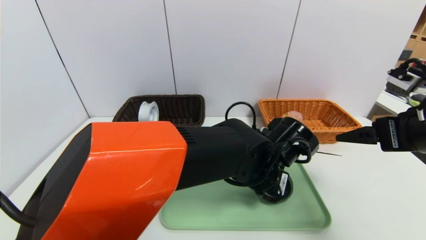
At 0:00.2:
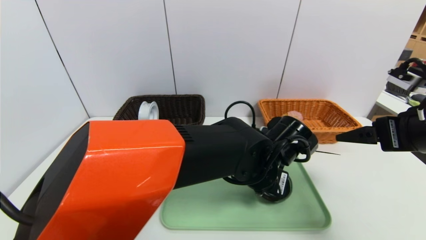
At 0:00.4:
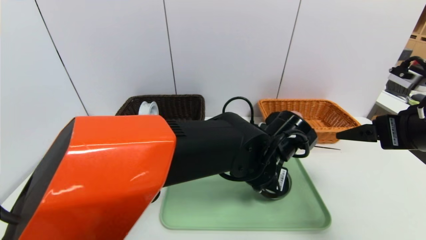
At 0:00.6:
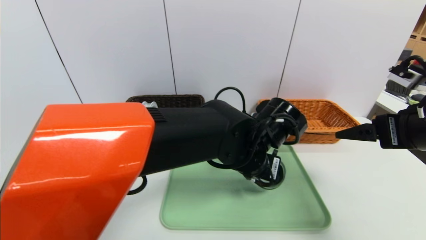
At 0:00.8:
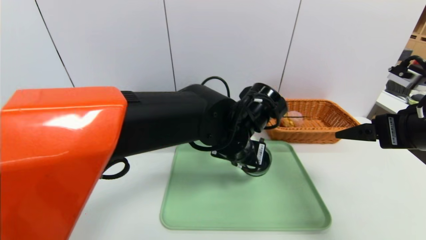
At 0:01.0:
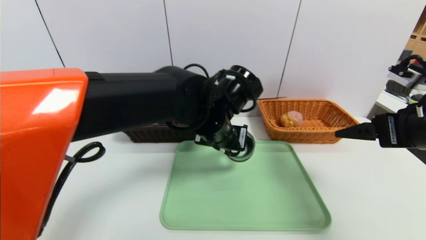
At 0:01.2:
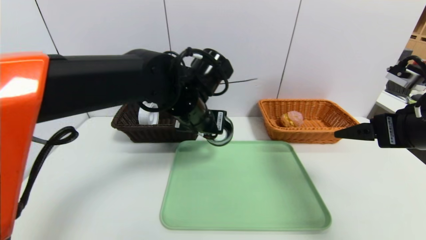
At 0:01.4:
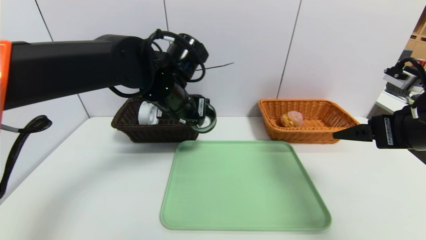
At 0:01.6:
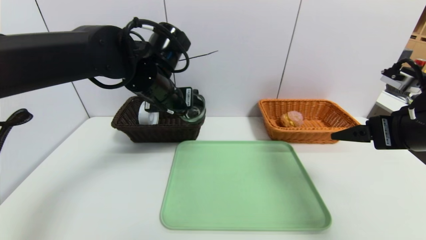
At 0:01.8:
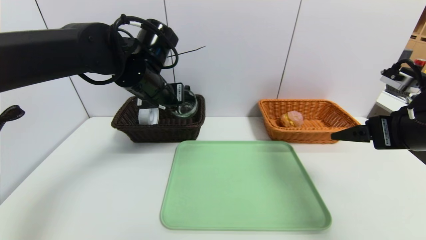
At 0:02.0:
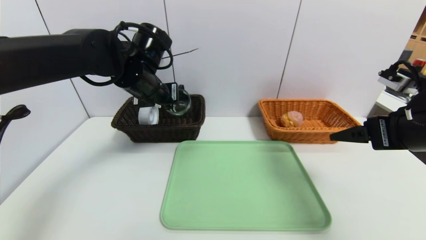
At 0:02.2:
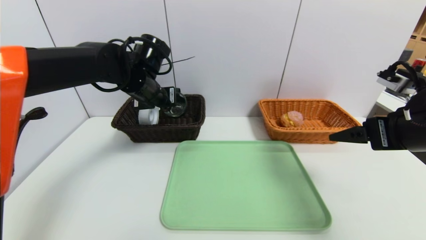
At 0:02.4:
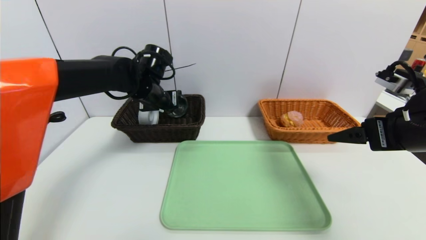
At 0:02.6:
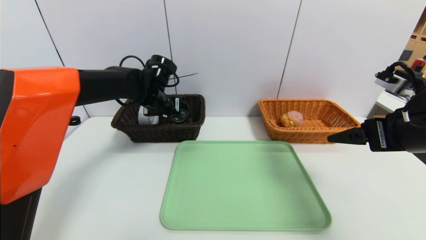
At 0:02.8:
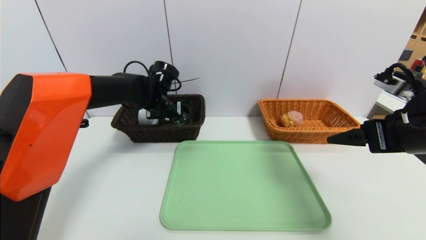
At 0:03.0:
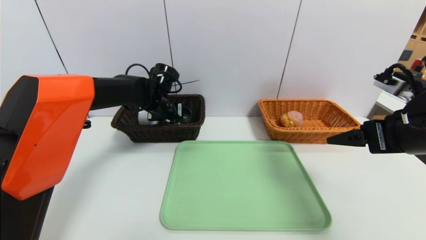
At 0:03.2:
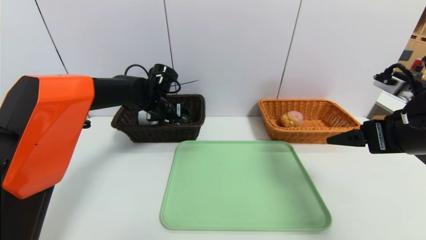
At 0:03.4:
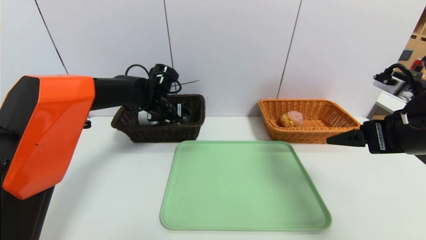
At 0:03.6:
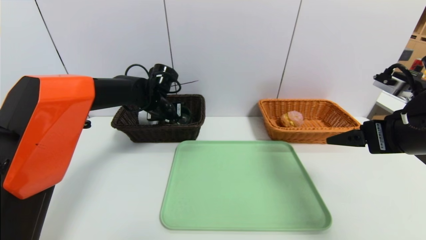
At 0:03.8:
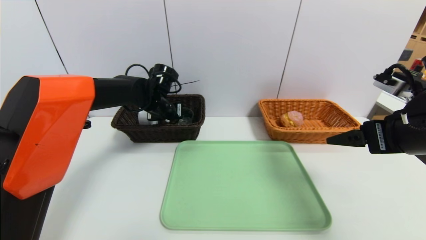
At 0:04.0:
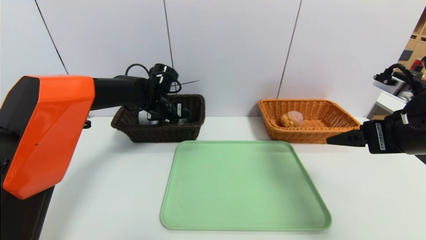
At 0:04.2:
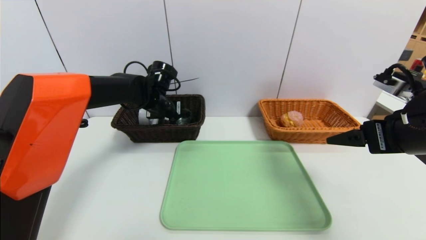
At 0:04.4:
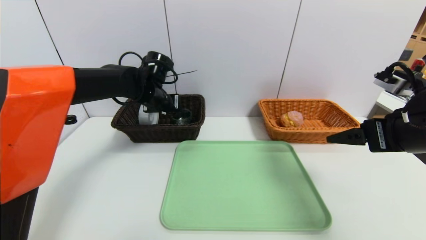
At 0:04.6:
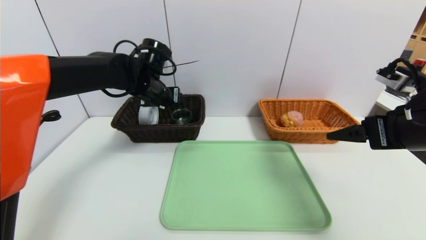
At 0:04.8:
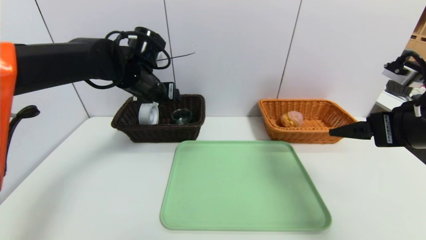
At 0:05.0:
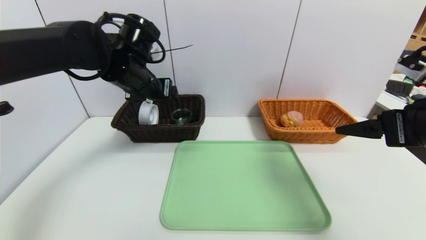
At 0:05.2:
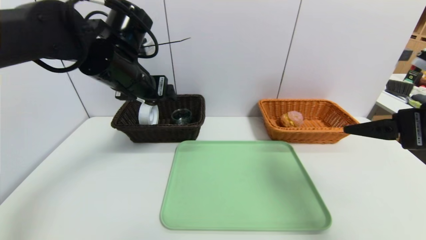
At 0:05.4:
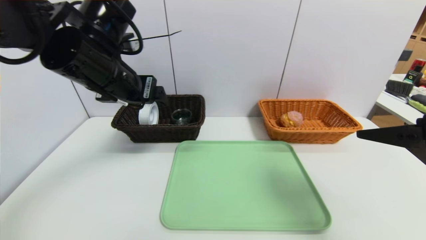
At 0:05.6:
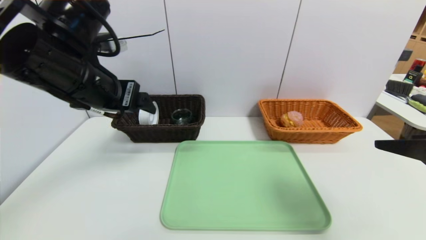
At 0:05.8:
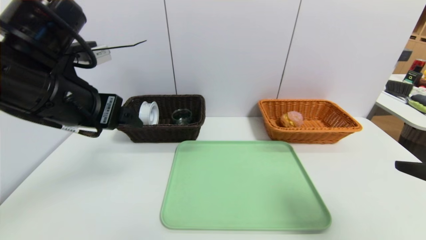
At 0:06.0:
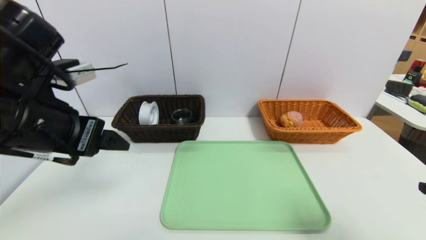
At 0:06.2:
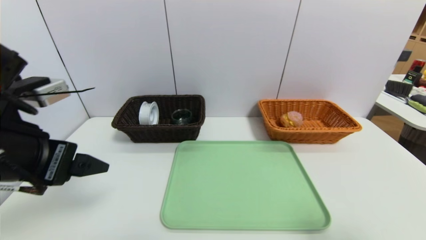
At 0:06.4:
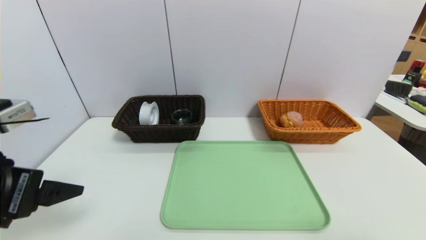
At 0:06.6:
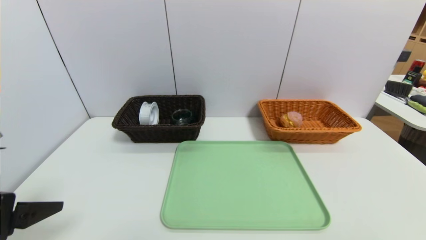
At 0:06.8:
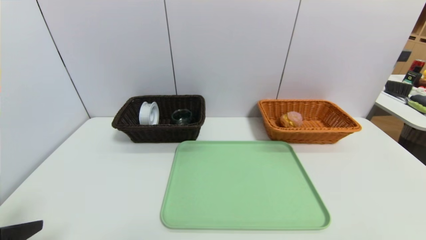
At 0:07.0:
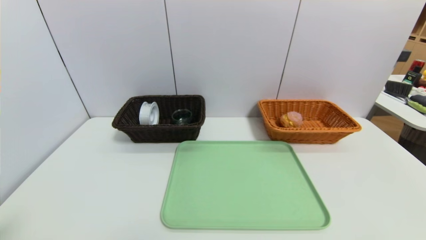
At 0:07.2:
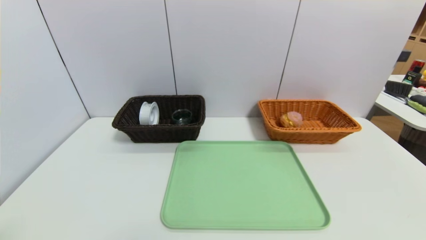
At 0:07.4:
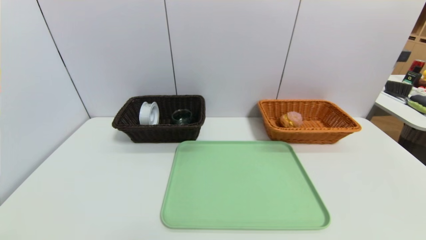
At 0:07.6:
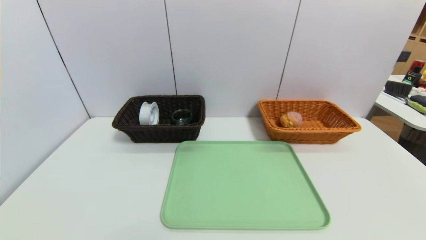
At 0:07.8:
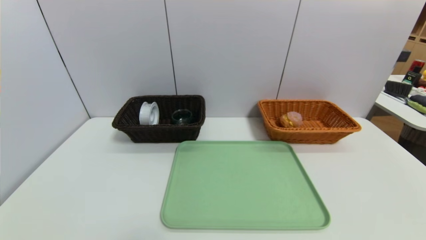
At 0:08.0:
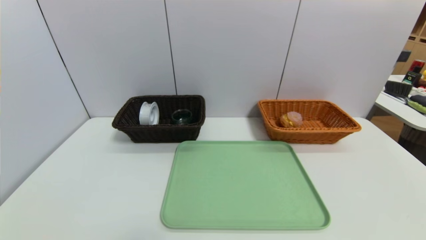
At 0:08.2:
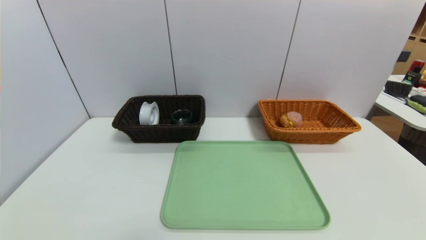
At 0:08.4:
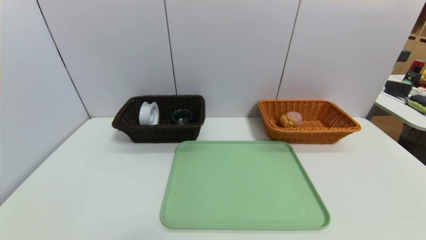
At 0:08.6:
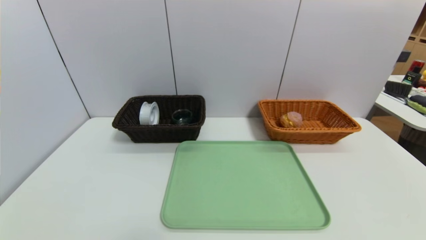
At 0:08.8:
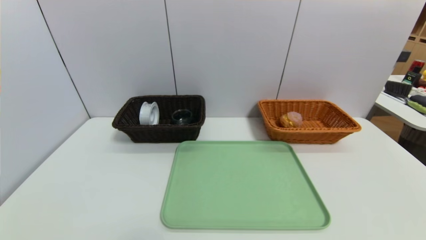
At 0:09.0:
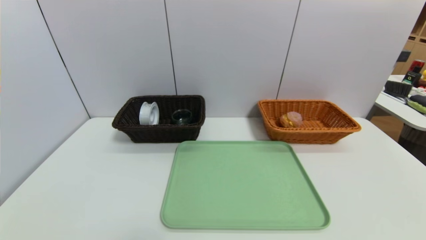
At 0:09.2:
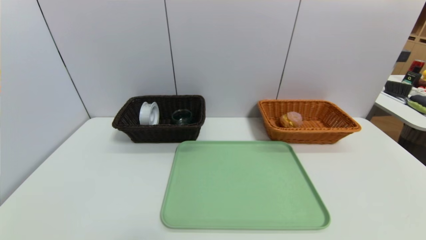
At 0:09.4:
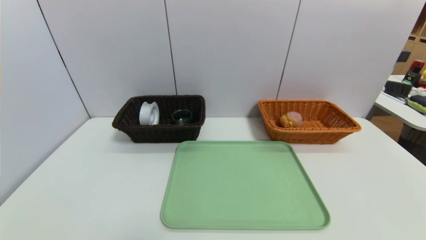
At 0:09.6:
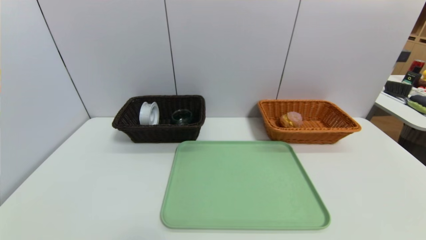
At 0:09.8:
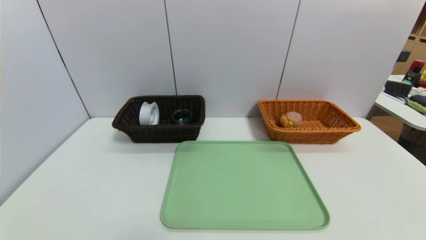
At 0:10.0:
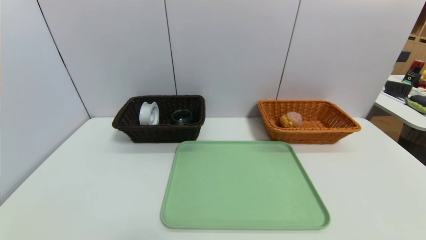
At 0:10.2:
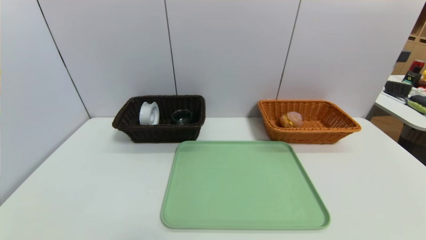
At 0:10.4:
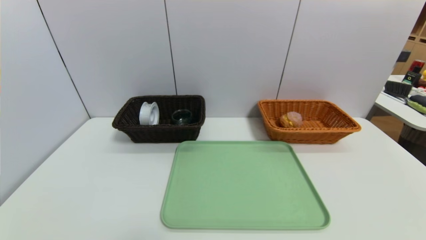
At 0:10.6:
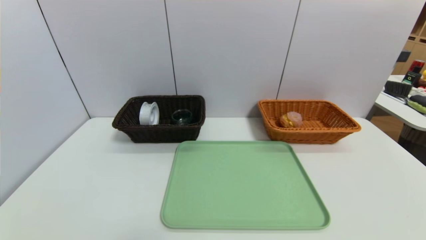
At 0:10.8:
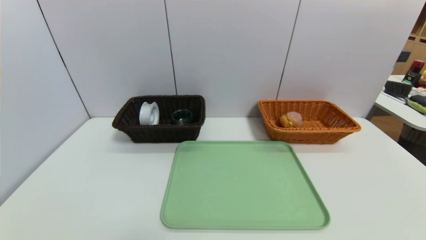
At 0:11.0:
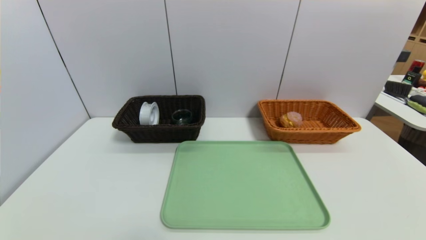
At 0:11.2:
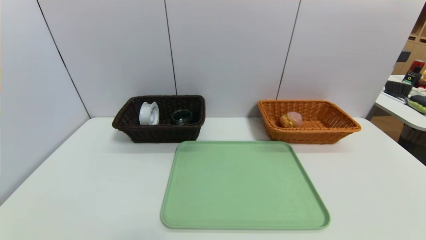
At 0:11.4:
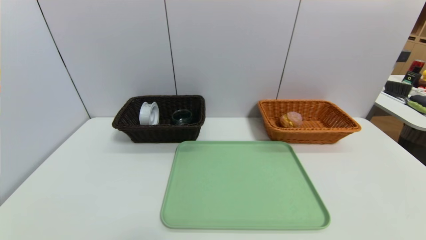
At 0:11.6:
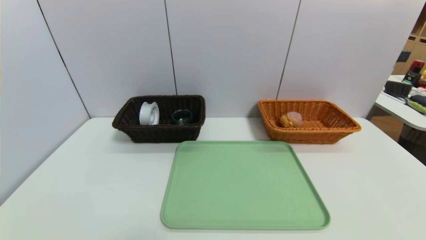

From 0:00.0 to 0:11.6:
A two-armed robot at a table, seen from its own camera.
Task of the whole recording: place the food in the right basket with the right gripper, and place the non food items in the left basket with the left gripper.
Step, from 0:00.0 to 0:04.0: Grasp the tea cup and put it in the left basket.
From 0:00.0 to 0:01.4: The left gripper goes about 20 cm to the left, upward and forward.
From 0:01.4 to 0:02.8: The left gripper moves forward, downward and to the left, approximately 15 cm.
From 0:02.8 to 0:04.4: The left gripper opens its fingers.
From 0:04.4 to 0:05.8: The right gripper heads backward, covering roughly 10 cm. Meanwhile the left gripper is displaced backward and upward by about 25 cm.
From 0:05.8 to 0:07.2: The right gripper moves backward and downward, some 15 cm. The left gripper moves backward, downward and to the left, some 25 cm.
From 0:07.2 to 0:08.8: The right gripper changes place by approximately 5 cm.

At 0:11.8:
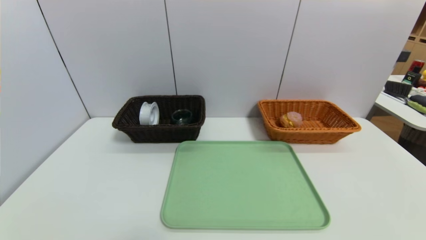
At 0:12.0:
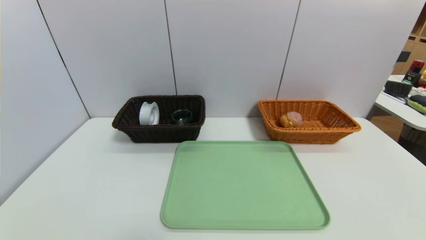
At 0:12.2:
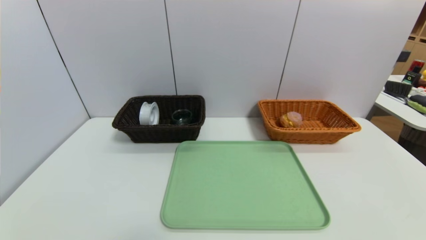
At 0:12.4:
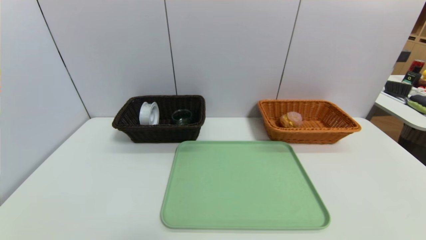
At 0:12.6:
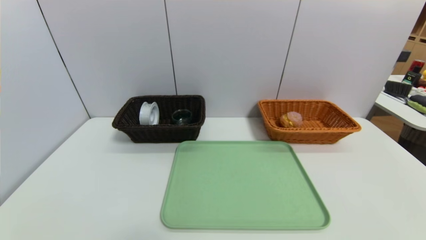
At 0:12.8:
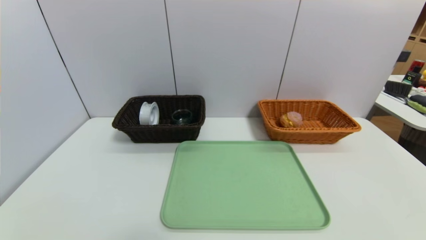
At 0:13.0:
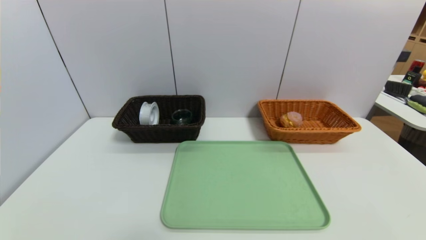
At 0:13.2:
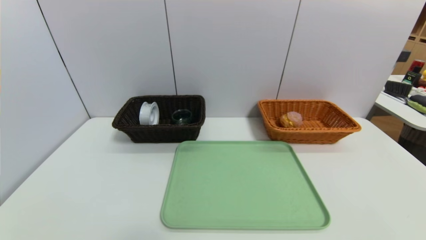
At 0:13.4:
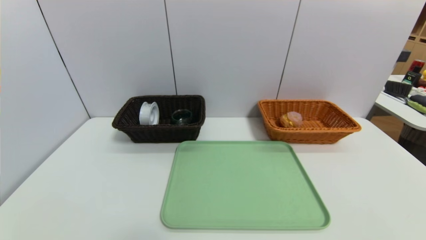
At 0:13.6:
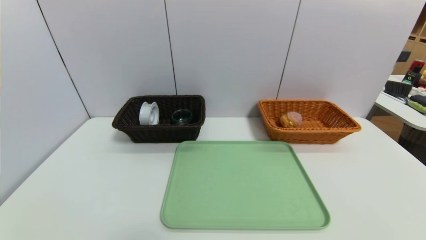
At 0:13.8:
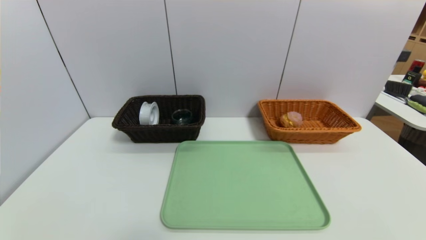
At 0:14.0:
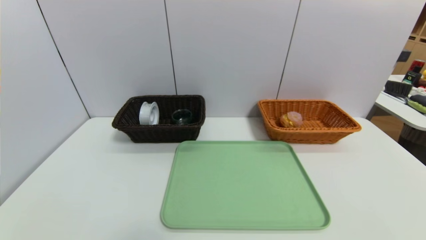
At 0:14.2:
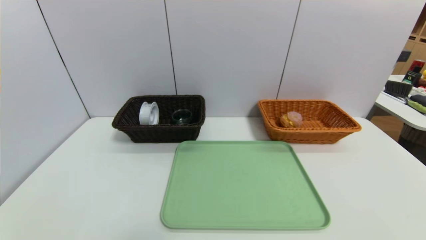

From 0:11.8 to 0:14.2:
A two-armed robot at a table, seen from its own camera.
Task of the whole recording: place the food in the right basket with the right gripper, and place the non food items in the left basket with the left gripper.
From 0:11.8 to 0:13.0: Both grippers stay about where they are.
From 0:13.0 to 0:14.2: Neither gripper changes place.
